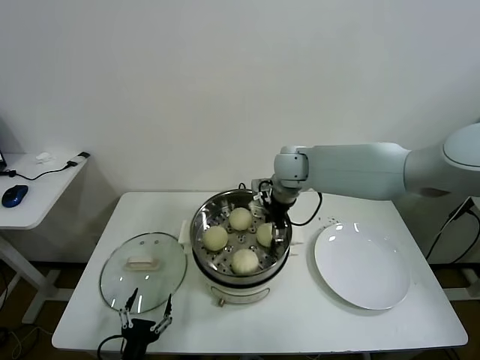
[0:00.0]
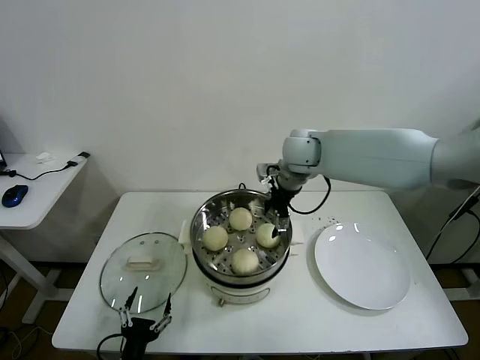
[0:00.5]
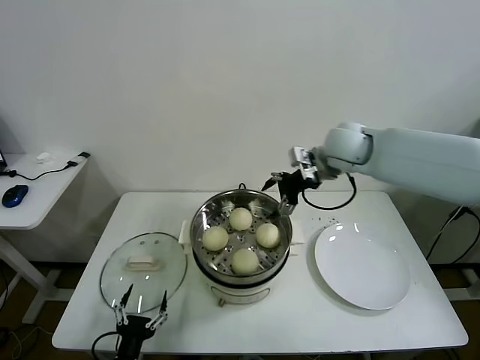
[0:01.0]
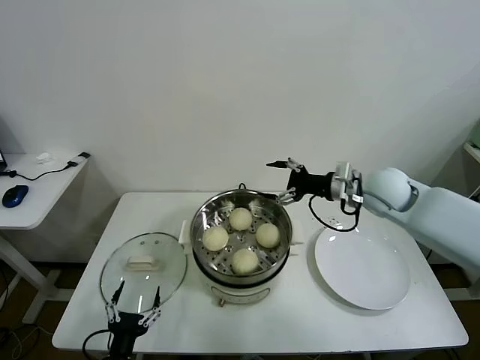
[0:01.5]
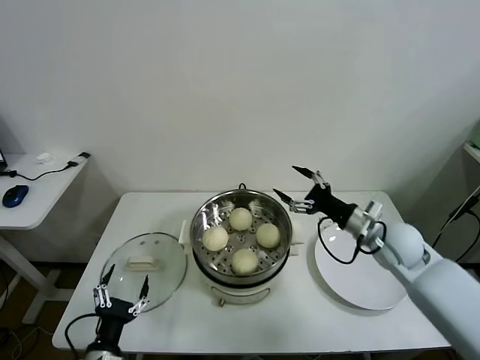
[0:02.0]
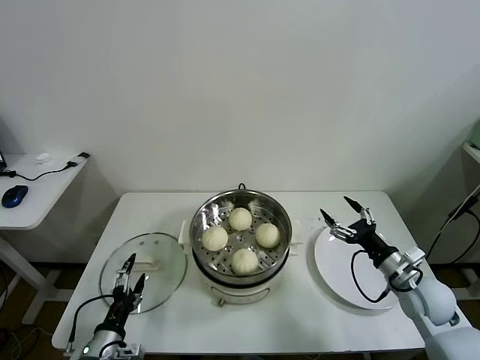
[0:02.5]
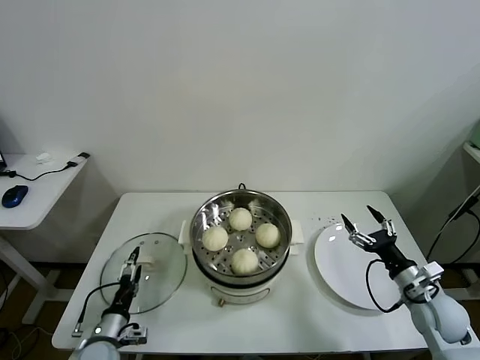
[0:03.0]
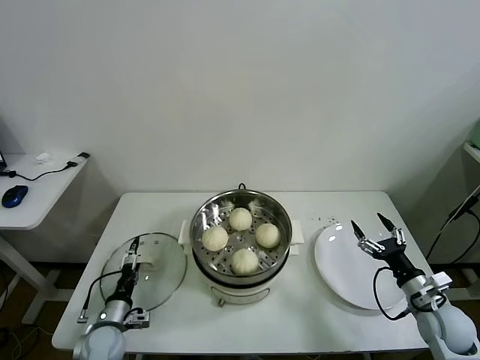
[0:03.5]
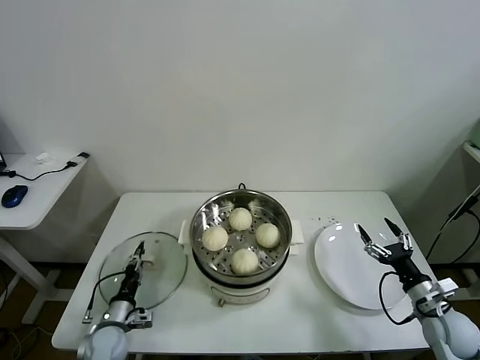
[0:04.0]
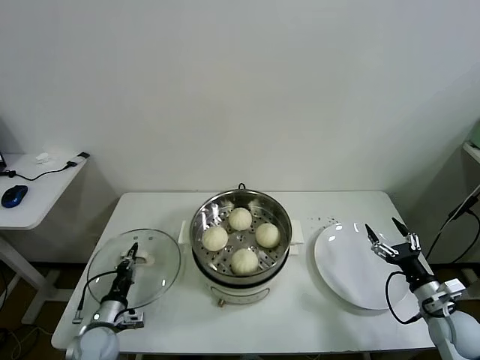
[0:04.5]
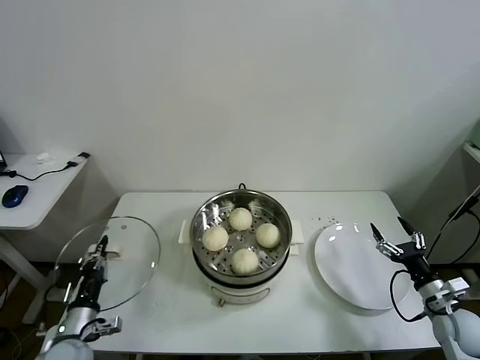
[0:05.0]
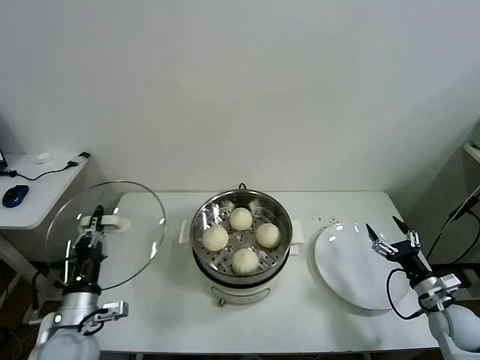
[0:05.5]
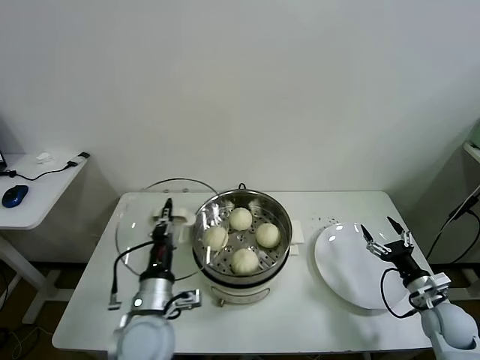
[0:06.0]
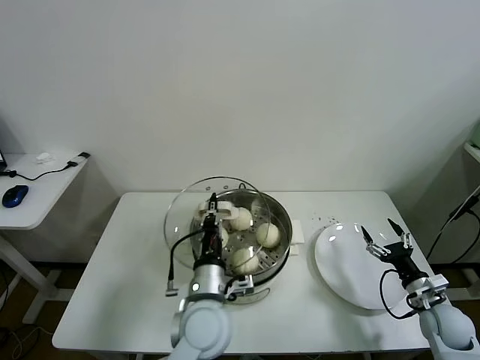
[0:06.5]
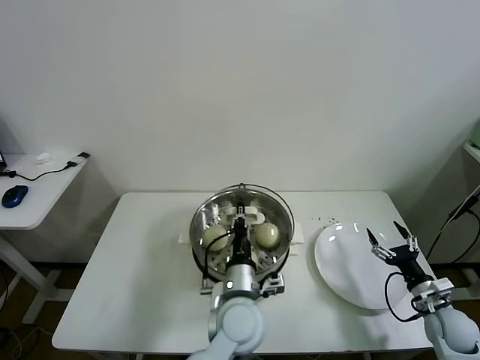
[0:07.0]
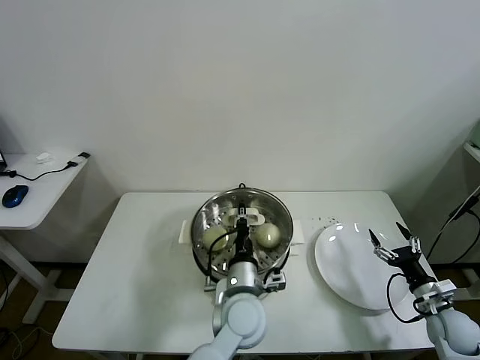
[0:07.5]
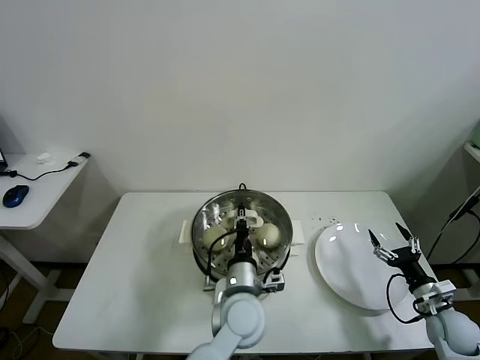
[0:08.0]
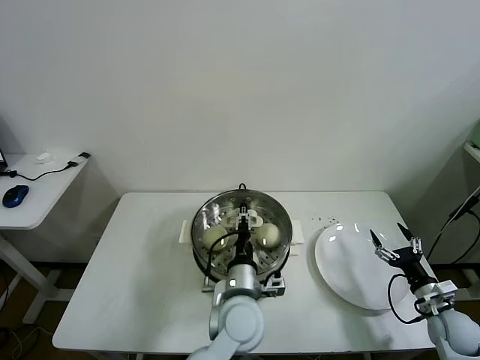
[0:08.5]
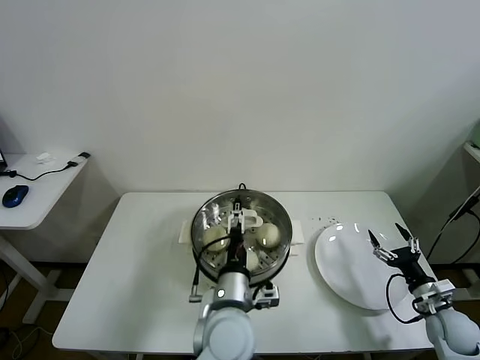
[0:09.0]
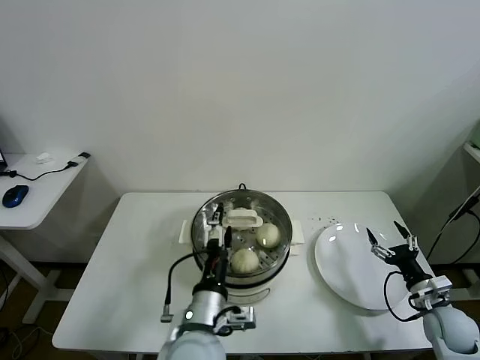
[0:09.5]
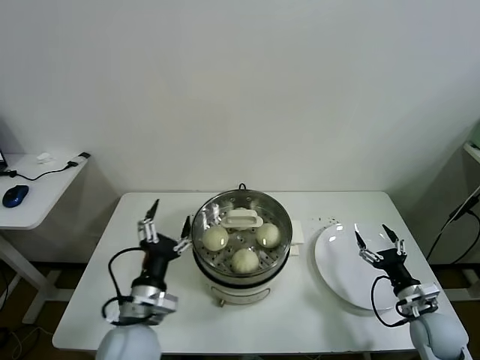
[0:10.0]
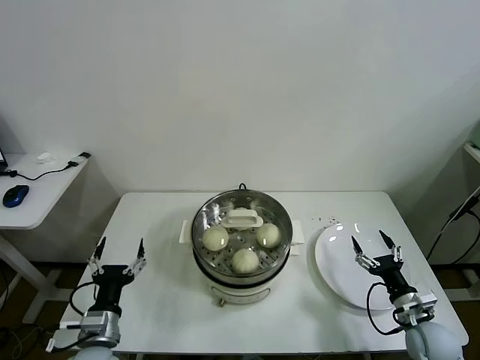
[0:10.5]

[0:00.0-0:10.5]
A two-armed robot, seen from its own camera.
Task of the whole recording: take steamed baozi put them in steamer.
Step, 0:00.5 to 0:04.0: Grasp the pot lid with left gripper.
Step, 0:04.5 to 0:09.0: Place the pot lid on the steamer with left gripper.
0:00.0 to 0:02.0: The right gripper heads to the right, backward and downward, covering about 25 cm; the left gripper changes place by roughly 5 cm.
0:02.0 to 0:04.0: The right gripper travels downward, backward and to the right by about 25 cm, while the left gripper heads forward and downward, covering some 15 cm, and closes up.
0:04.0 to 0:06.5: The left gripper shifts roughly 30 cm to the right and upward, and closes up.
0:06.5 to 0:08.5: The left gripper shifts about 5 cm to the right.
0:08.5 to 0:10.5: The left gripper shifts roughly 30 cm to the left, and opens up, while the right gripper is displaced to the left by roughly 5 cm.
